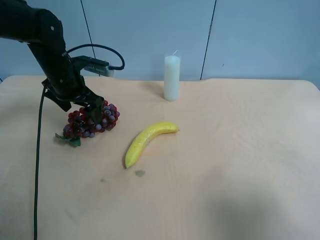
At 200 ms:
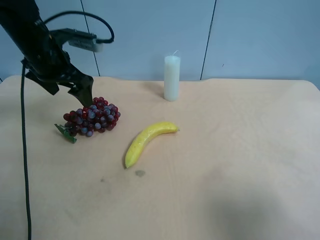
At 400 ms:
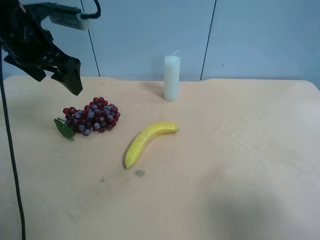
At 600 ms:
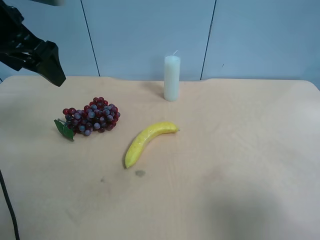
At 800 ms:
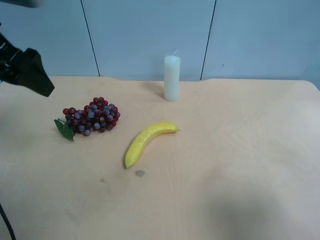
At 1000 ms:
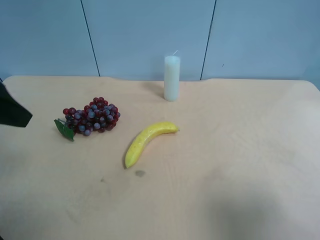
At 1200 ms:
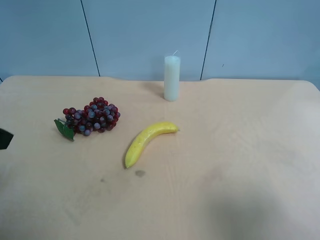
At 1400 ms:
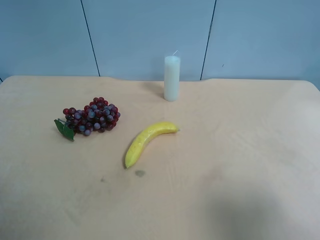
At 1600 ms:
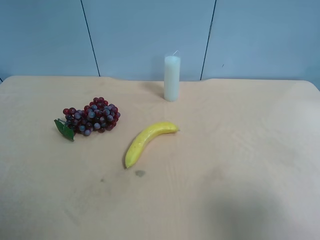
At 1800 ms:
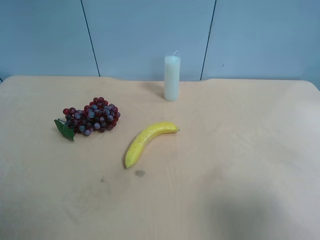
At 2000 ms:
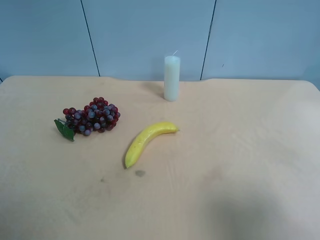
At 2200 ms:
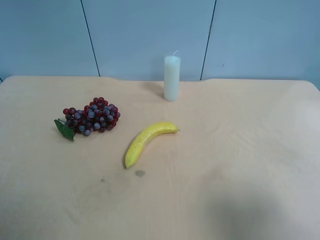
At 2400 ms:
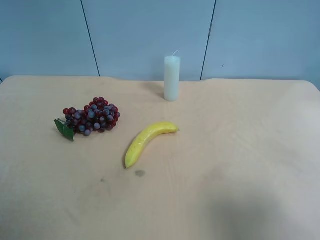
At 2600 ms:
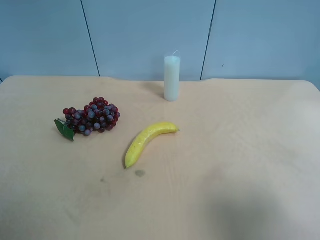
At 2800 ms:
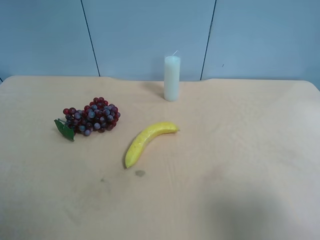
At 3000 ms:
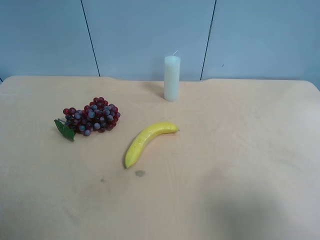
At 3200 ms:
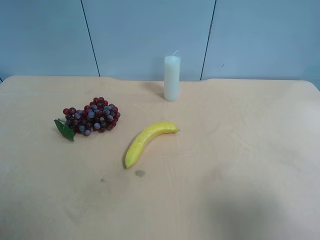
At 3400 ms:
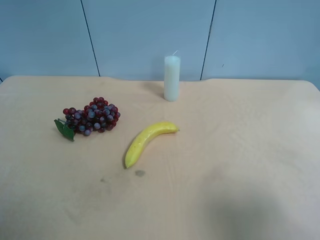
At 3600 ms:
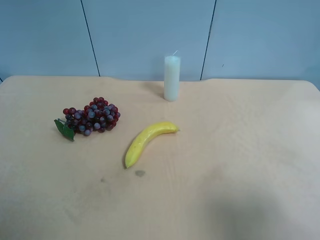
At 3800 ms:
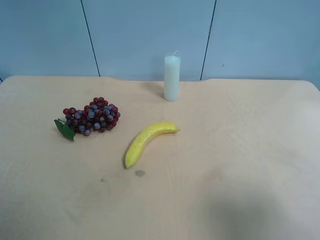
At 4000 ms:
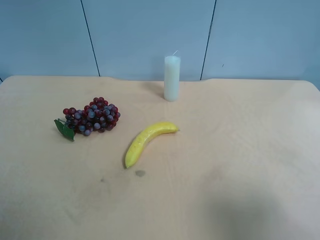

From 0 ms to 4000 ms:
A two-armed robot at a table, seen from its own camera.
Task of the whole recording: use the right gripper to pick up the item and transfer it from the right gripper to the left gripper.
From 0 ms to 1400 ms: The left gripper is displaced backward by about 30 cm.

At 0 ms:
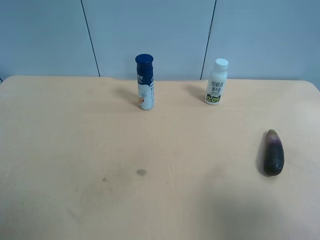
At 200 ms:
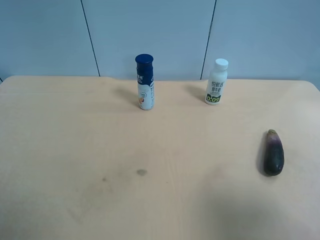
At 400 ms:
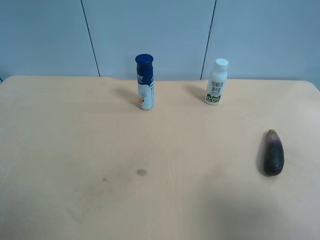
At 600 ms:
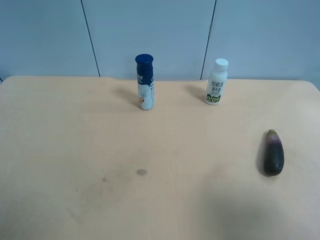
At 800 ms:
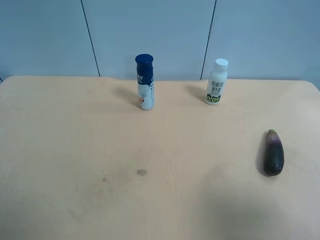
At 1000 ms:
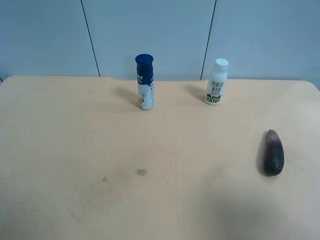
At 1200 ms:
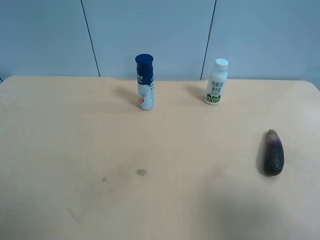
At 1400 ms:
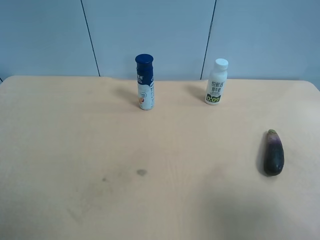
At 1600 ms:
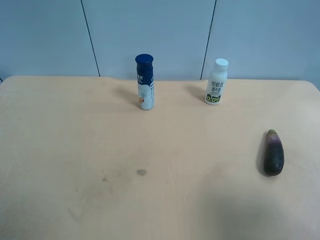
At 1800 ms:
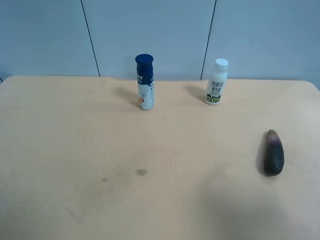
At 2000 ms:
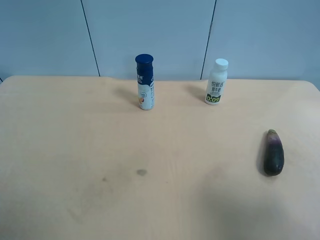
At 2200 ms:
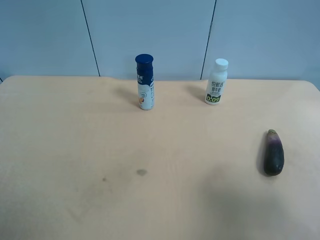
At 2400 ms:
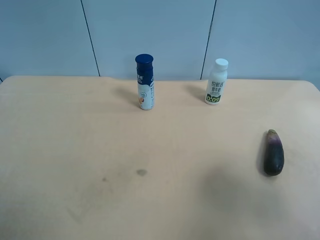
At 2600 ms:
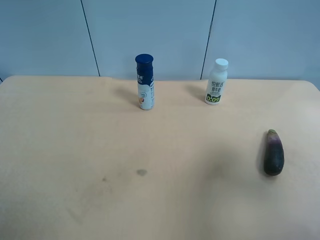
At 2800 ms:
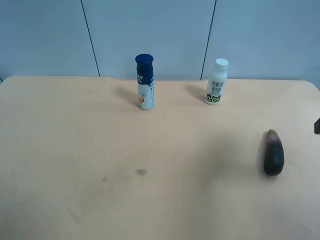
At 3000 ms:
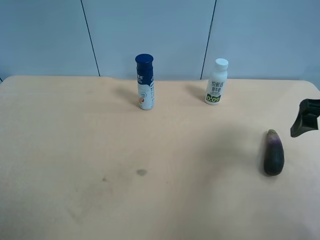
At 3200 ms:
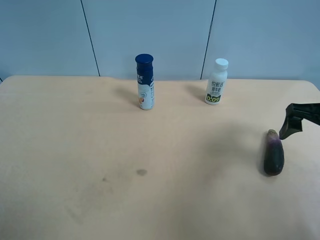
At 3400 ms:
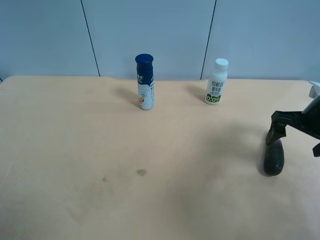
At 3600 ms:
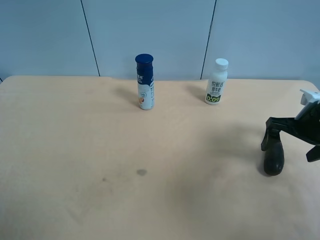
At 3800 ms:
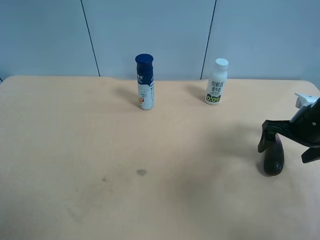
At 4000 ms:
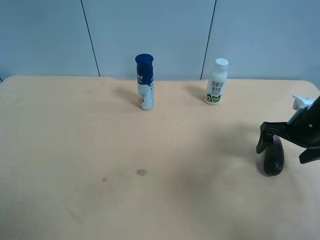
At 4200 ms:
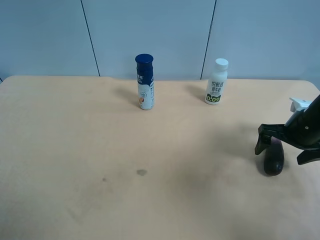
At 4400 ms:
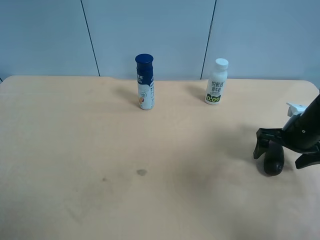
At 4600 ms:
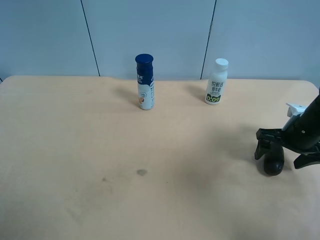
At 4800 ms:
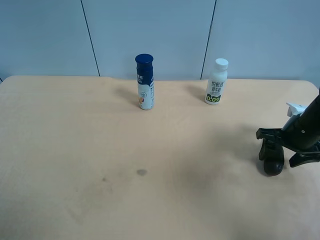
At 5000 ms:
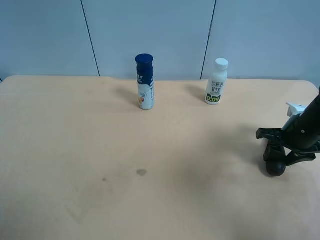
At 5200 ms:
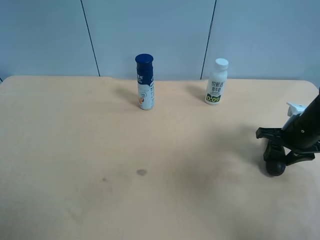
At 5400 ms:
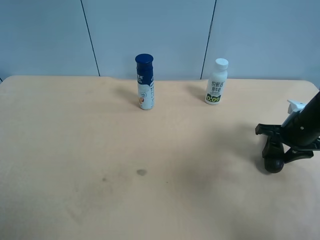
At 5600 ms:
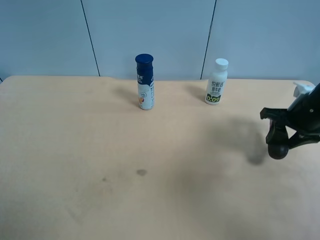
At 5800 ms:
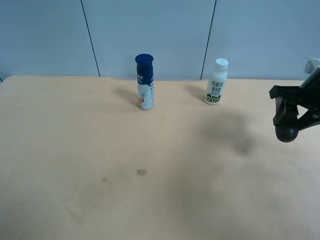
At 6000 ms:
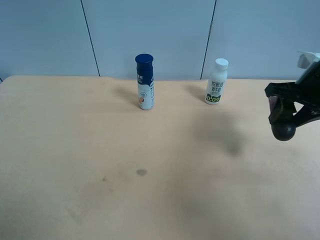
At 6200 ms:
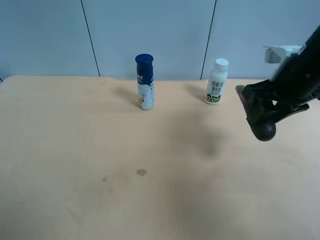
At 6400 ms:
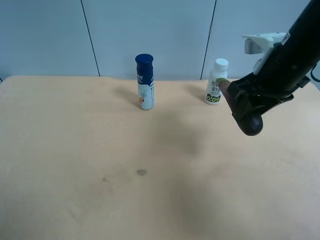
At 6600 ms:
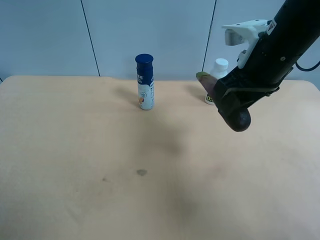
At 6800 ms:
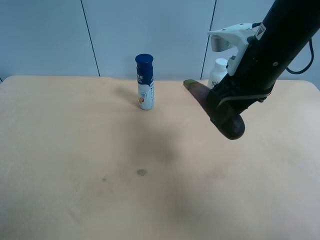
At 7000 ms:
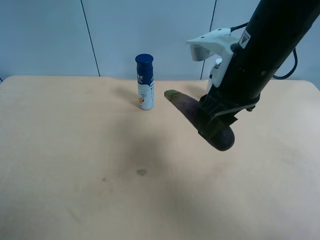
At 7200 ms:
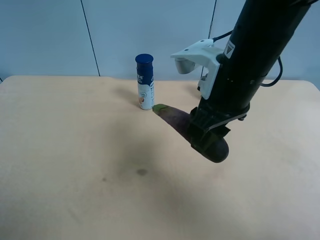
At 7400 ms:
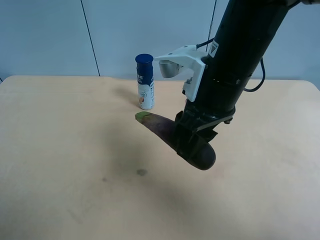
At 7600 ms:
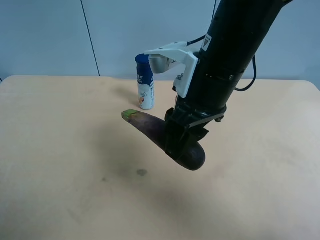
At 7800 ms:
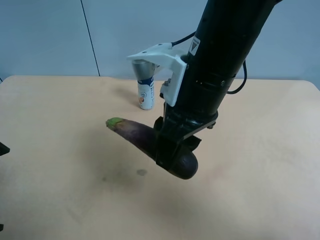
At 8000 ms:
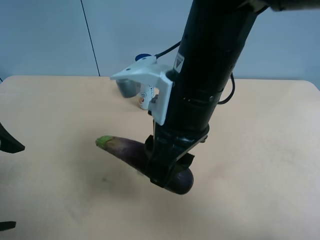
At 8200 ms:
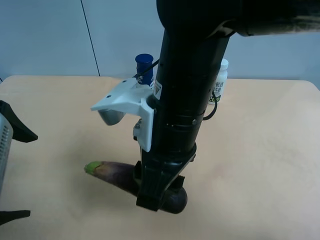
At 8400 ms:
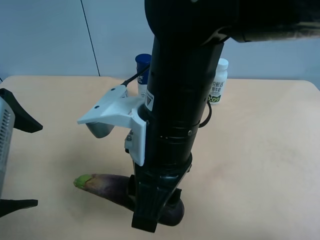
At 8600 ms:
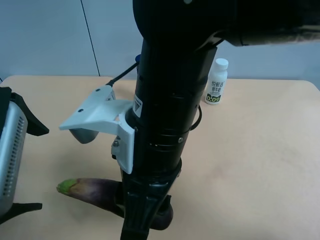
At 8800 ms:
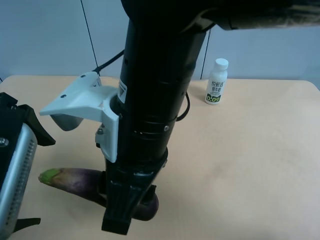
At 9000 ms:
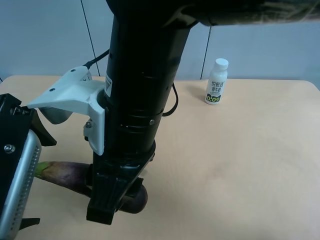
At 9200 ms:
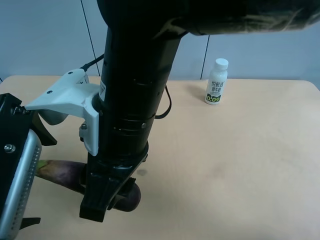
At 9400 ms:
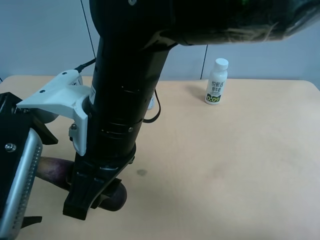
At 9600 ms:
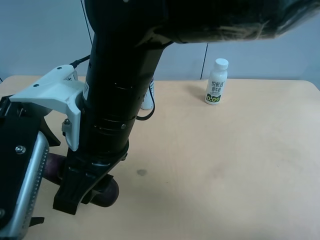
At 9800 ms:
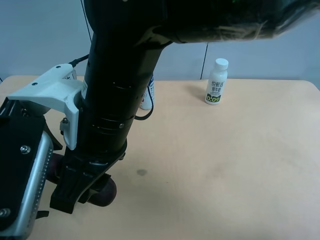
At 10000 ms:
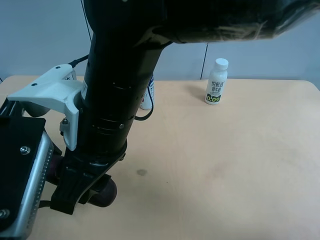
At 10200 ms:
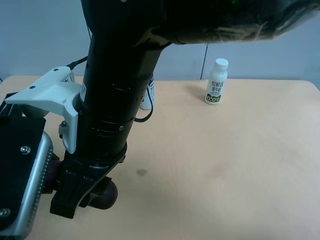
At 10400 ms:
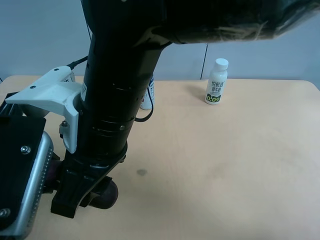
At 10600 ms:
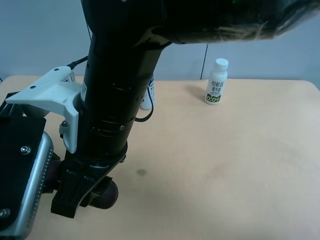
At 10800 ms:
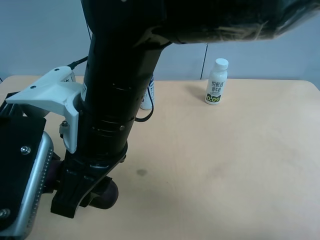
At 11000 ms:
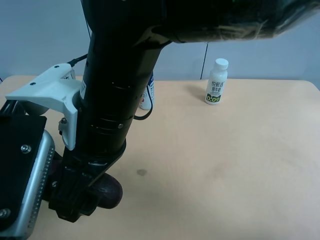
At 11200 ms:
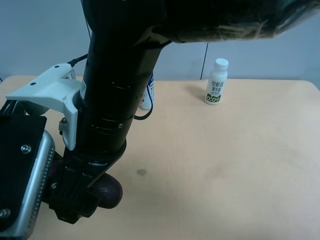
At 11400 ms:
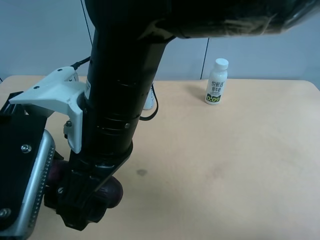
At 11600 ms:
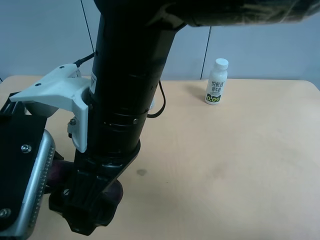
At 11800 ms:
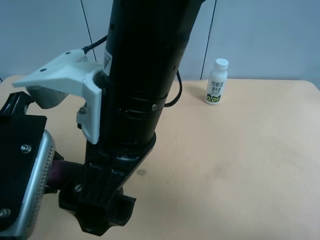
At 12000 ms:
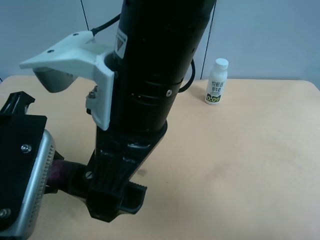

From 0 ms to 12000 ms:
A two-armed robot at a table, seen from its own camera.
Task of the whole recording: use the right gripper to pick up the item and transfer it from the right gripper to the left gripper.
From 0 ms to 1600 ms: Neither gripper changes place.
From 1600 ms to 3000 ms: The right gripper shifts roughly 20 cm forward, and opens up.
From 3000 ms to 4400 ms: The right gripper is displaced downward and forward by some 15 cm.
From 4400 ms to 6000 ms: The right gripper goes about 10 cm upward, and closes its fingers.
From 6000 ms to 7600 ms: The left gripper moves forward and to the right, roughly 10 cm. Meanwhile the right gripper travels to the left by some 20 cm.
From 7600 ms to 9000 ms: The left gripper shifts about 10 cm to the right. Meanwhile the right gripper heads to the left and backward, covering roughly 10 cm.
From 9000 ms to 10400 ms: The left gripper closes.
From 10400 ms to 12000 ms: The right gripper goes about 5 cm upward, and opens up.

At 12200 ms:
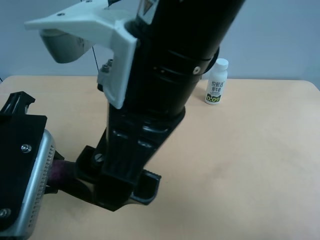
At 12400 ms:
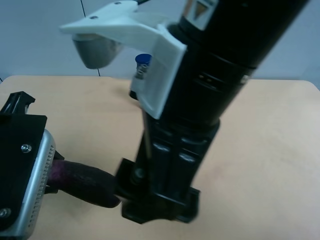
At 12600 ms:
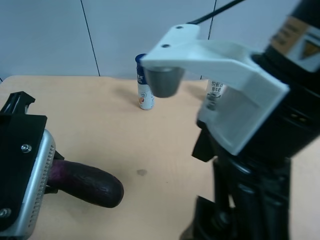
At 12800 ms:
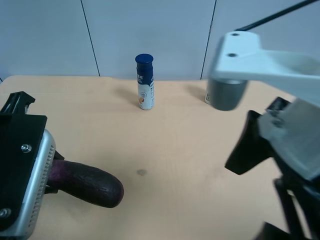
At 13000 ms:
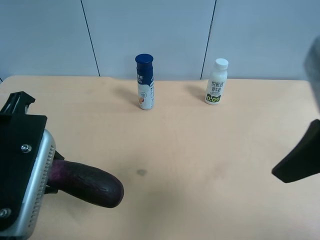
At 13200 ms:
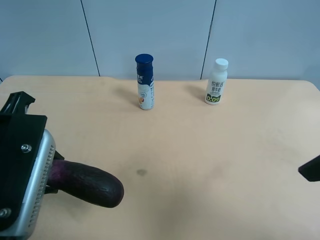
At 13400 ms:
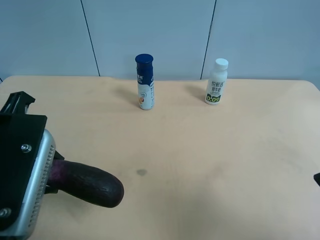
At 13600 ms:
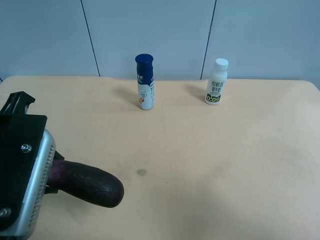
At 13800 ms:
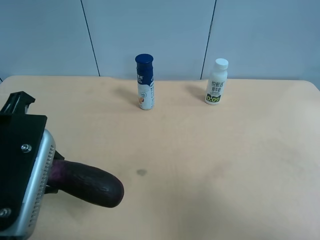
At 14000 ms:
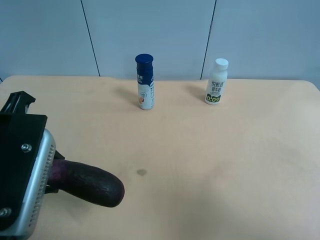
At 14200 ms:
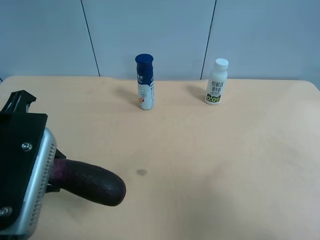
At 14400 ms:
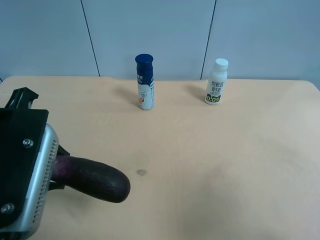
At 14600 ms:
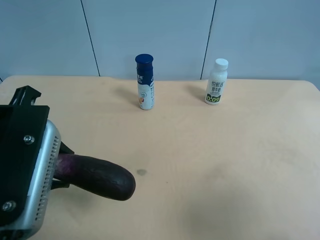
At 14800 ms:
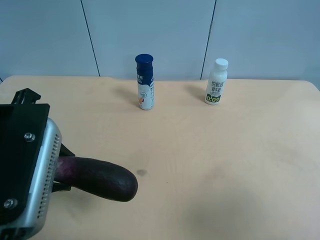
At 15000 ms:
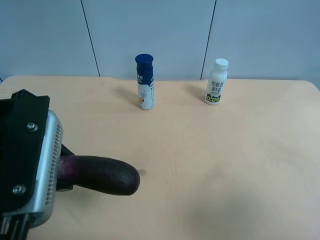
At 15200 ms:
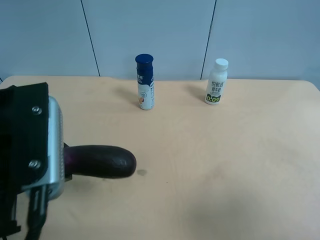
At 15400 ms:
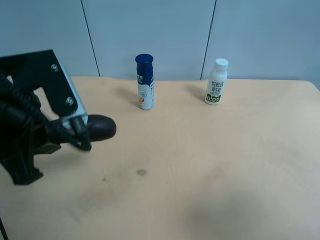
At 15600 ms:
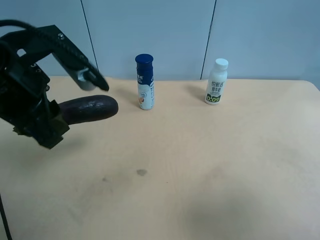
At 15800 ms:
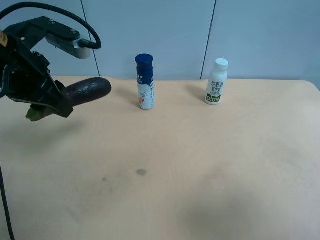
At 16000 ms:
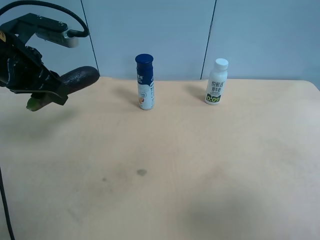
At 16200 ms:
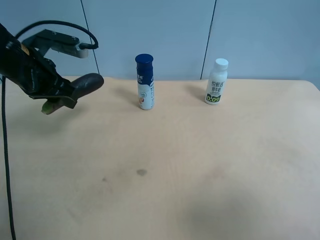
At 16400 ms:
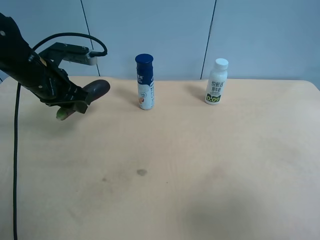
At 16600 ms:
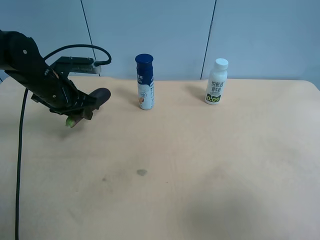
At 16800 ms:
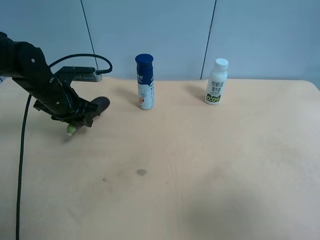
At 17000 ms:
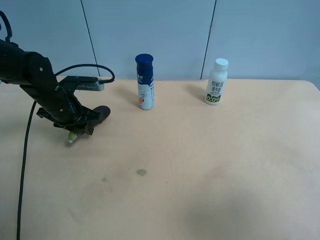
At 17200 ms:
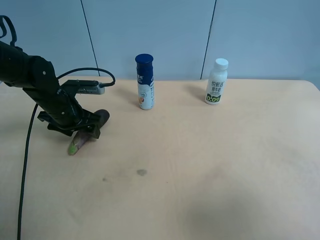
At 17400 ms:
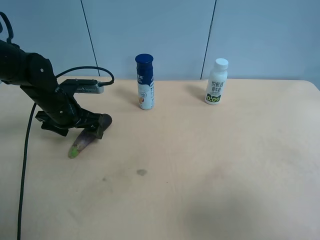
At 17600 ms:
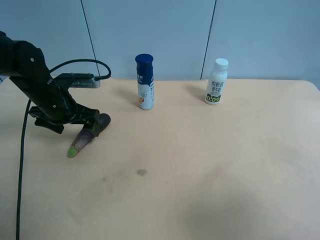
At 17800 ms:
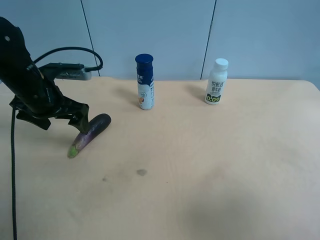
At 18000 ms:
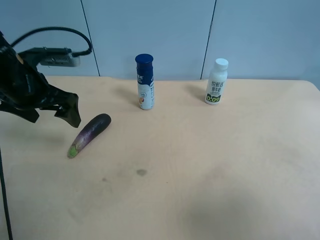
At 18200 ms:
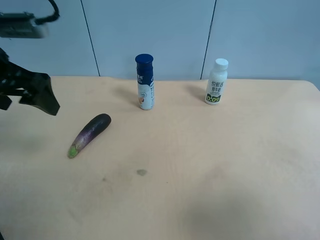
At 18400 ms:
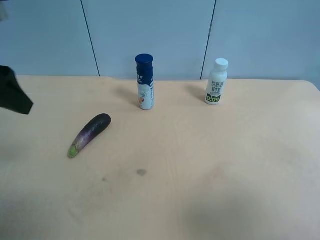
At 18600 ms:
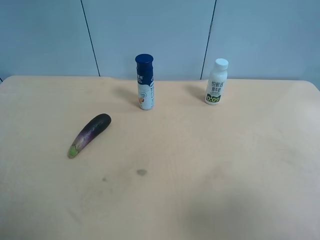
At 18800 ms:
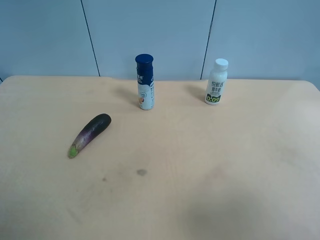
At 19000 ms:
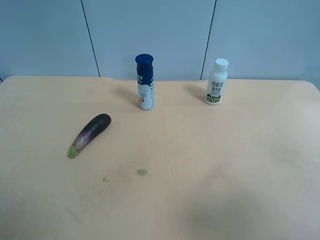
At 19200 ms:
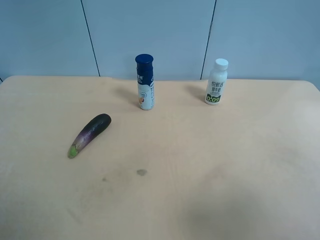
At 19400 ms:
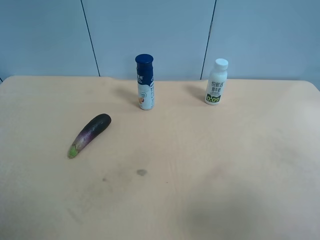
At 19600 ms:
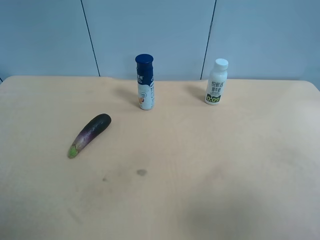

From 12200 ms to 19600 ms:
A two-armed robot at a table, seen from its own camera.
Task of the whole recording: use the right gripper to pick up the item and transfer it from the right gripper to the left gripper.
From 12200 ms to 13600 ms: The right gripper heads to the right and backward, covering about 25 cm.
From 15200 ms to 16600 ms: The left gripper heads forward and downward, covering approximately 25 cm.
From 16600 ms to 18200 ms: The left gripper goes approximately 15 cm upward and backward, and opens its fingers.
From 18200 ms to 19600 ms: The left gripper shifts approximately 25 cm backward.
